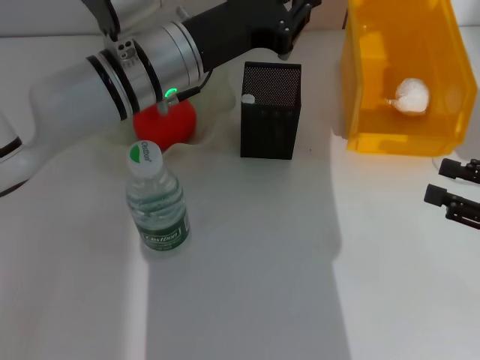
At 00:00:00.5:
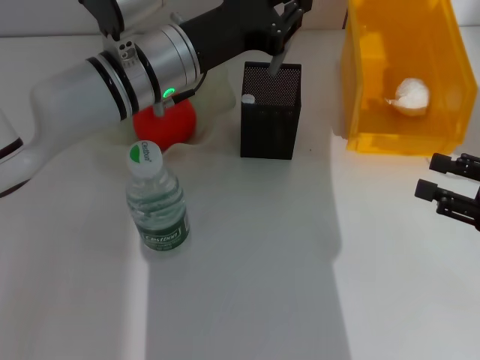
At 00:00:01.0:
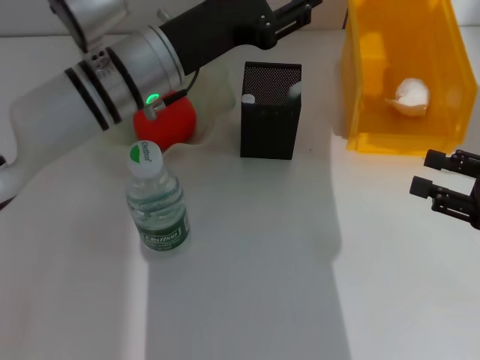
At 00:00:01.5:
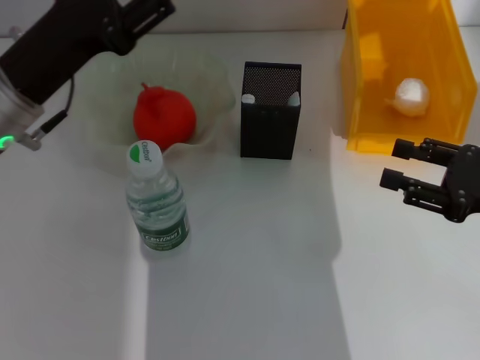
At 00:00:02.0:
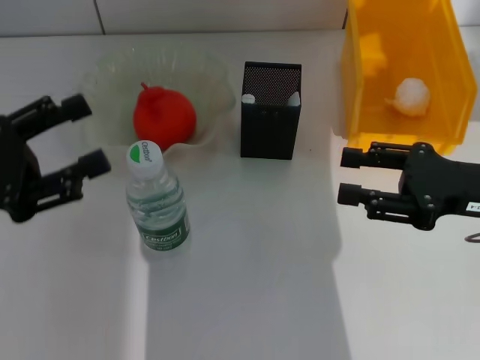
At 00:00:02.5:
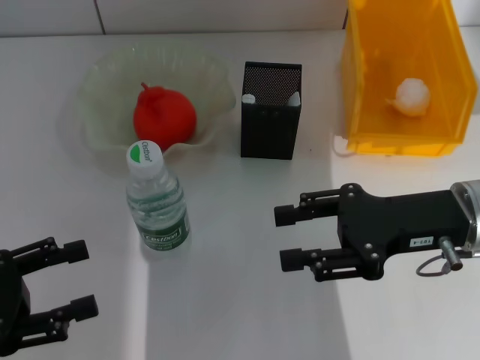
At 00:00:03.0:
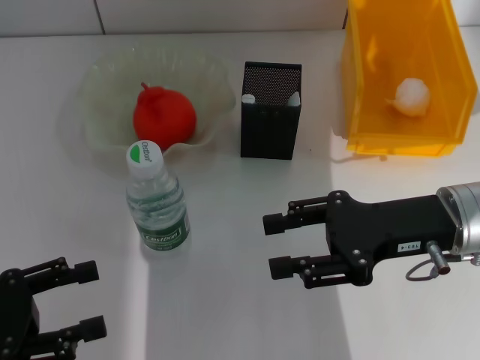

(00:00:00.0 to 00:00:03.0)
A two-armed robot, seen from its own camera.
00:00:00.0 - 00:00:01.5: The left gripper is displaced to the left and backward by roughly 10 cm, and opens.
00:00:01.5 - 00:00:03.0: The right gripper travels to the left by some 10 cm. The left gripper heads backward and to the left, covering approximately 20 cm.

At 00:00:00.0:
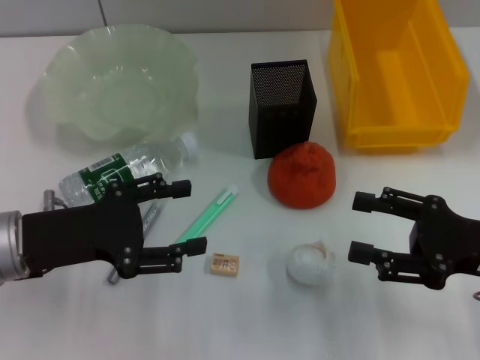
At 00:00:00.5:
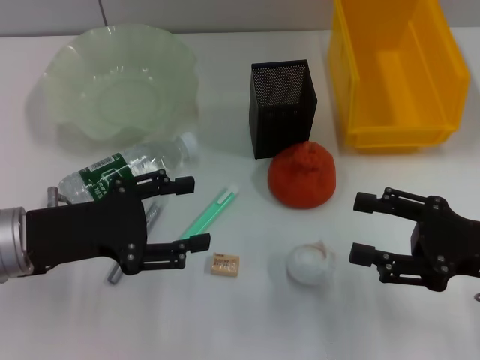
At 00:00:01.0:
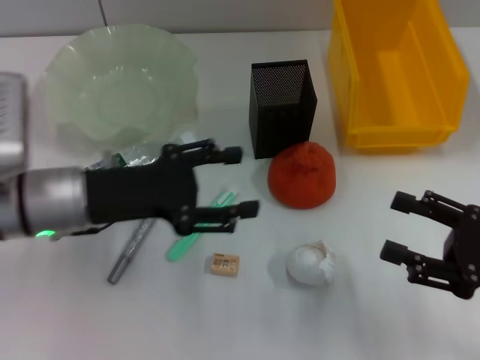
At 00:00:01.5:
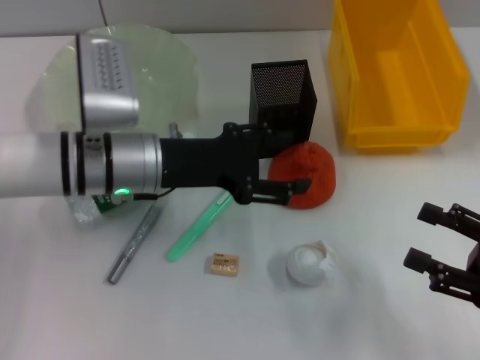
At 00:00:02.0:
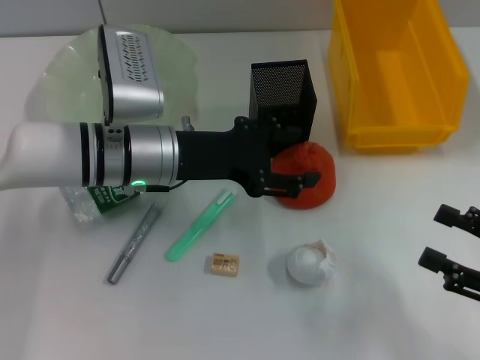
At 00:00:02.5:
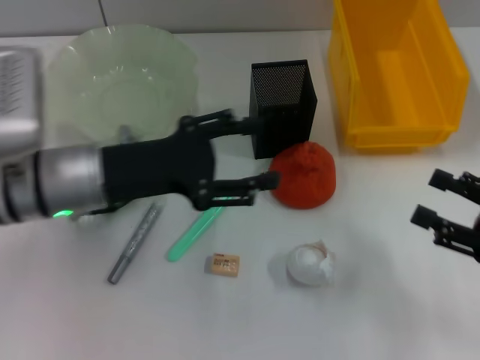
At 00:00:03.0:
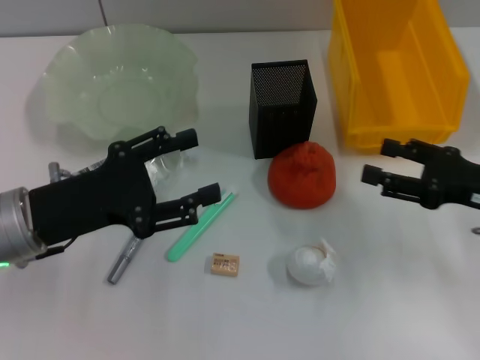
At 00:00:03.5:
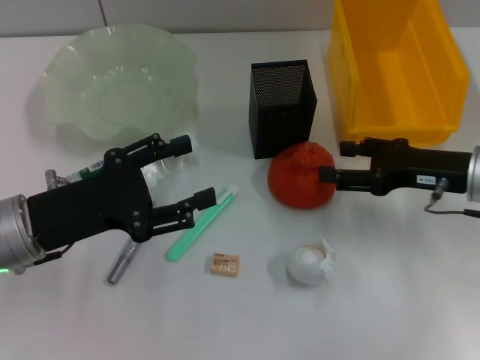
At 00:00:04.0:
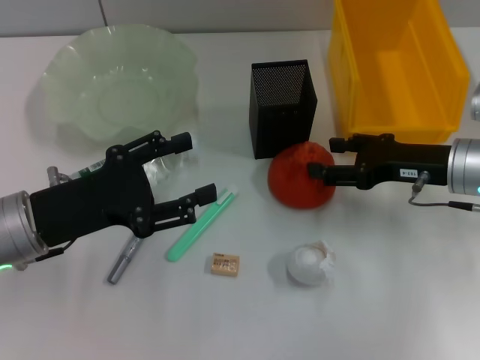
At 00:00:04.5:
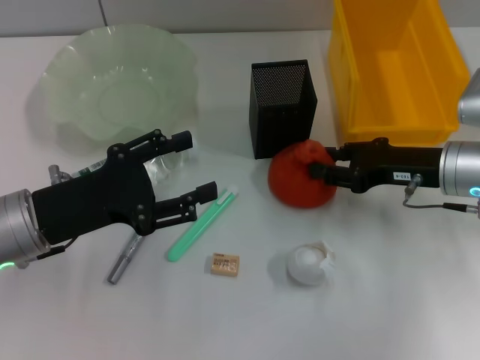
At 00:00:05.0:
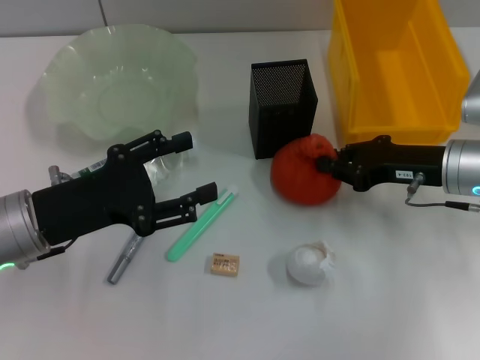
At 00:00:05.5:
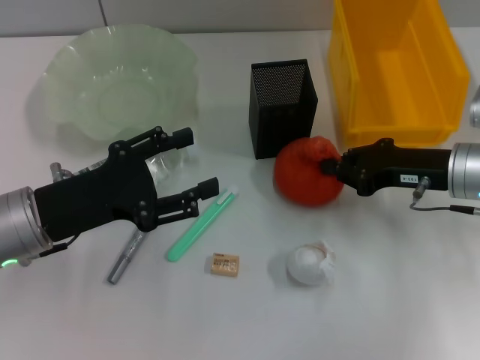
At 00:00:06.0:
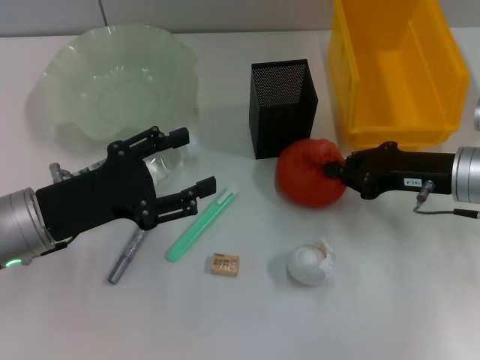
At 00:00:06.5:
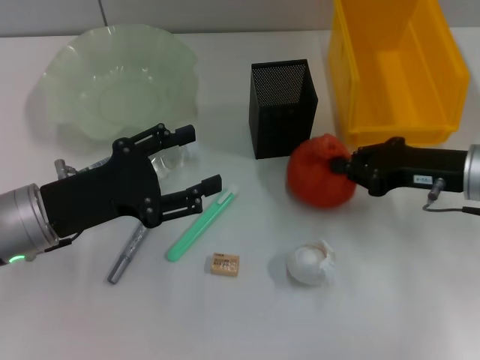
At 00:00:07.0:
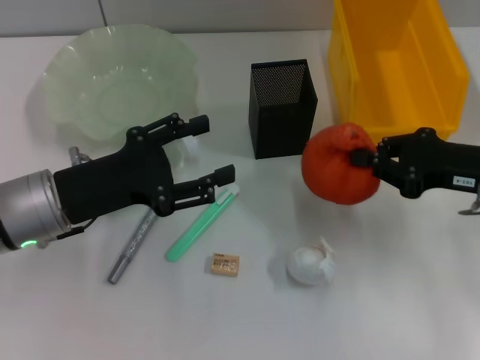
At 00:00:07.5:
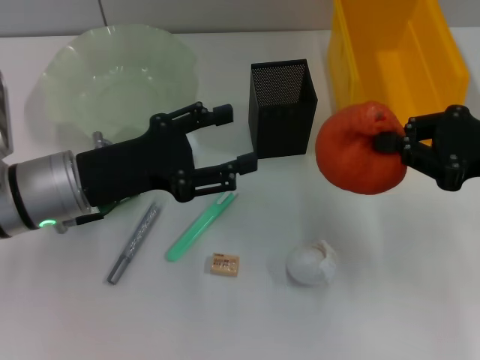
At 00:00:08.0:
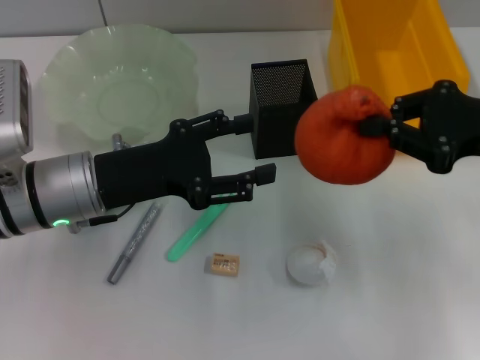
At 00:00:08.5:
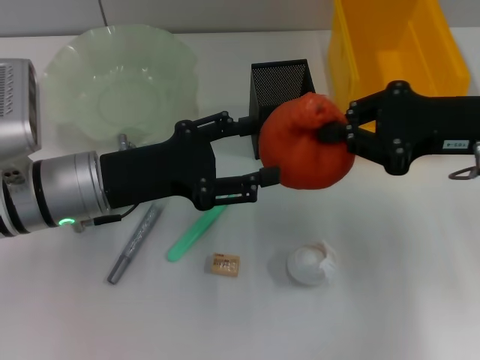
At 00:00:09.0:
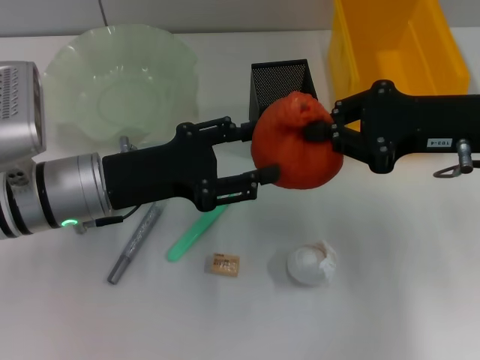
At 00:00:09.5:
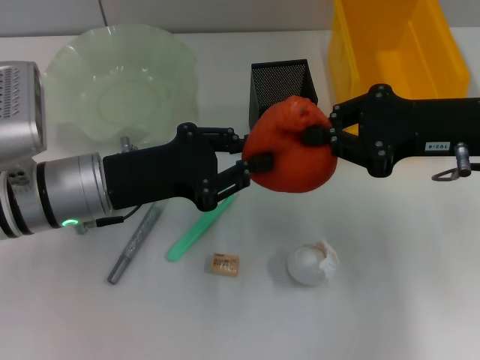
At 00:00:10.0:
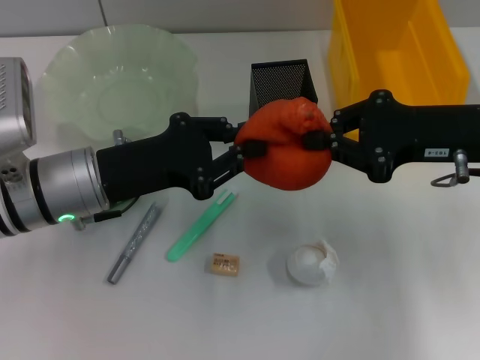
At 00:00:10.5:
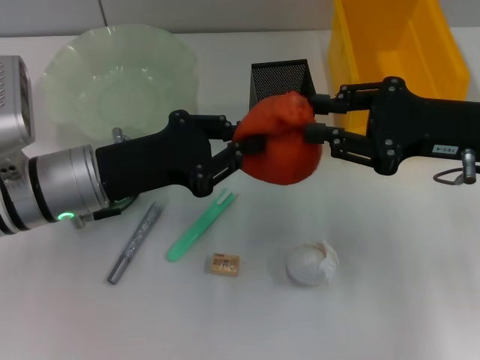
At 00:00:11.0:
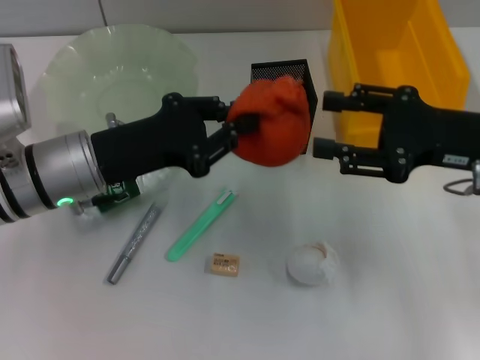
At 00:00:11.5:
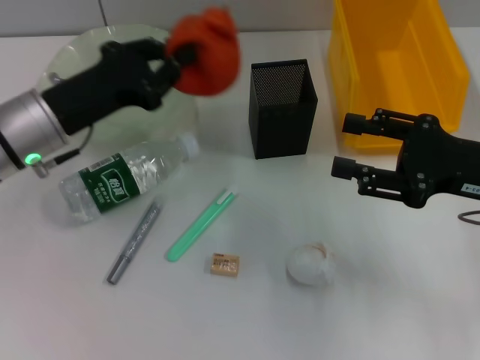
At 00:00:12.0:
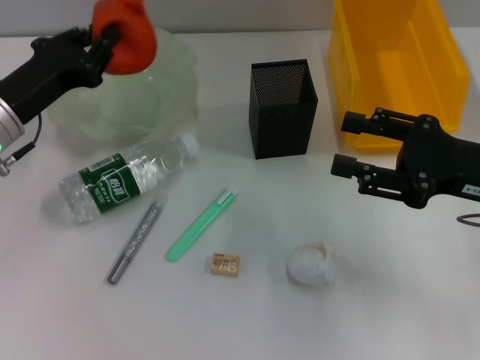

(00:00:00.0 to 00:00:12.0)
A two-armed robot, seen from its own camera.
Step, 00:00:00.0 - 00:00:05.0: Grab the orange with the right hand.
Step, 00:00:06.0 - 00:00:10.5: Pass the orange from the right hand to the left hand.
00:00:00.0 - 00:00:02.0: The right gripper moves backward and to the right, approximately 10 cm; the left gripper travels to the right and forward by roughly 15 cm.
00:00:02.0 - 00:00:04.0: The left gripper travels to the left and backward by about 15 cm; the right gripper shifts roughly 20 cm forward and to the left.
00:00:04.0 - 00:00:06.0: The right gripper closes.
00:00:06.0 - 00:00:08.0: The left gripper changes place by some 5 cm. The right gripper is displaced upward by about 10 cm.
00:00:08.0 - 00:00:10.0: The left gripper closes up.
00:00:10.0 - 00:00:12.0: The right gripper moves about 5 cm, and opens its fingers, while the left gripper goes approximately 10 cm to the left.

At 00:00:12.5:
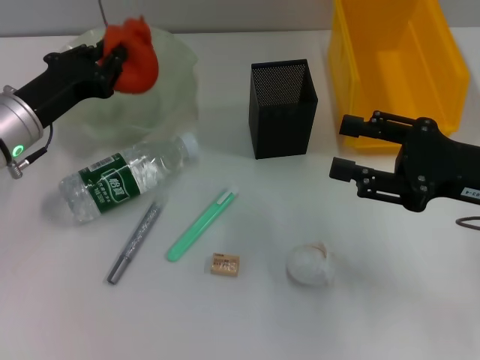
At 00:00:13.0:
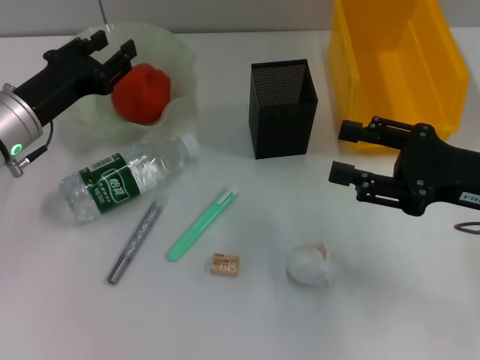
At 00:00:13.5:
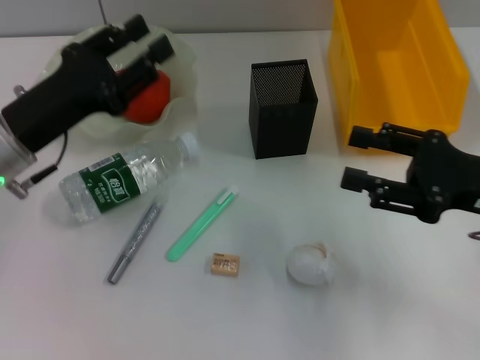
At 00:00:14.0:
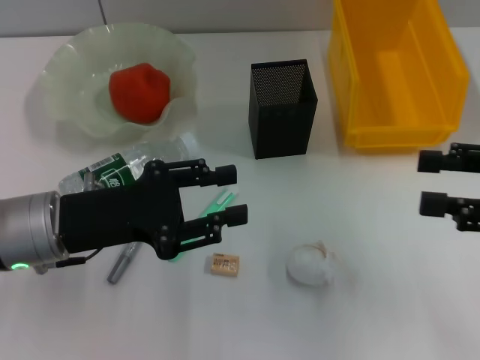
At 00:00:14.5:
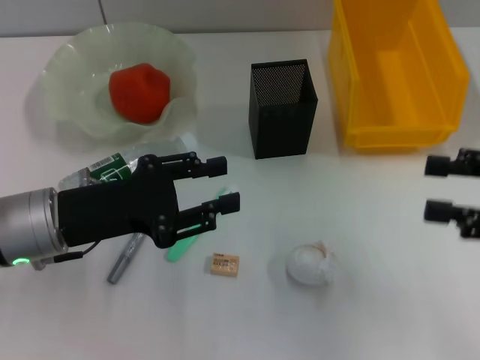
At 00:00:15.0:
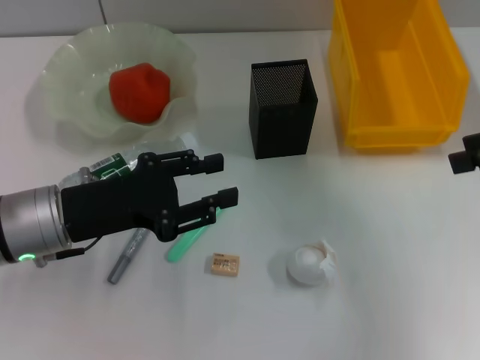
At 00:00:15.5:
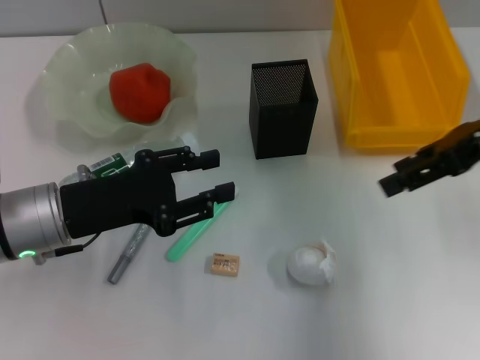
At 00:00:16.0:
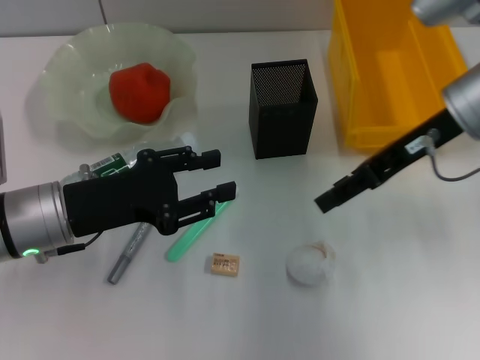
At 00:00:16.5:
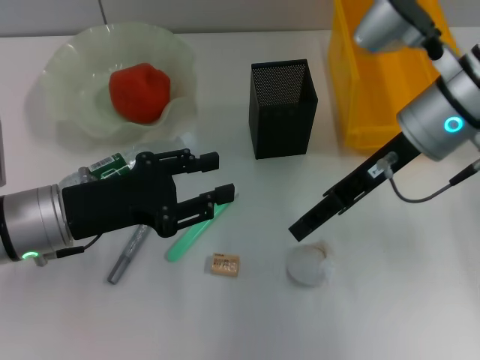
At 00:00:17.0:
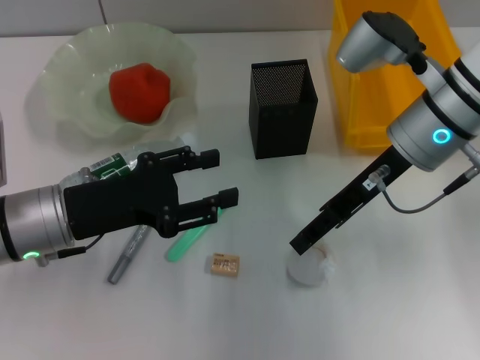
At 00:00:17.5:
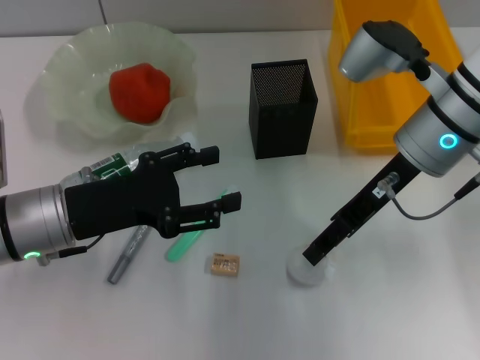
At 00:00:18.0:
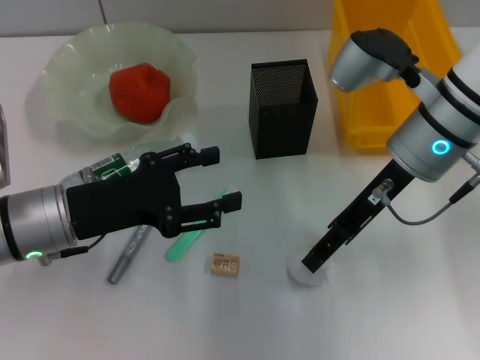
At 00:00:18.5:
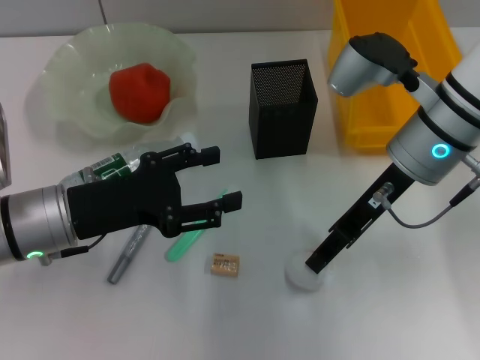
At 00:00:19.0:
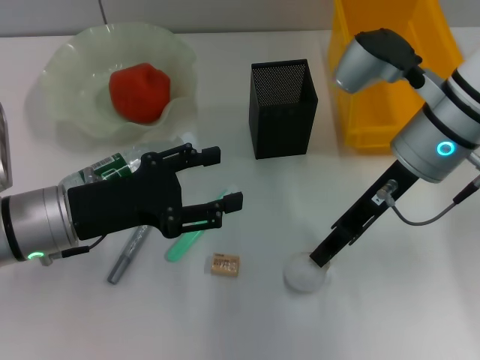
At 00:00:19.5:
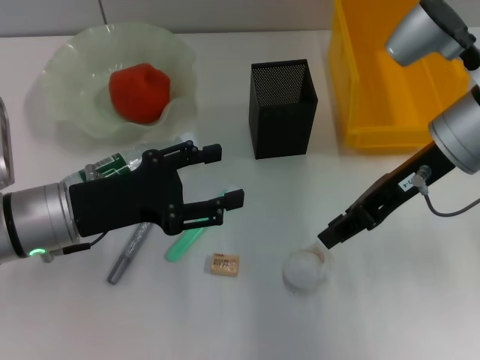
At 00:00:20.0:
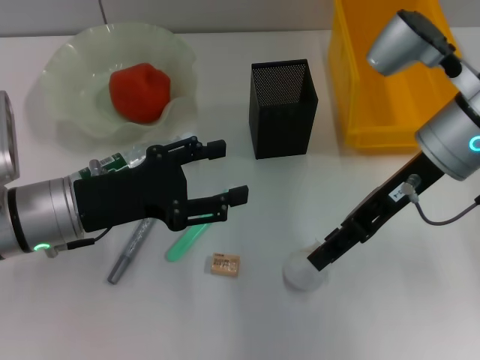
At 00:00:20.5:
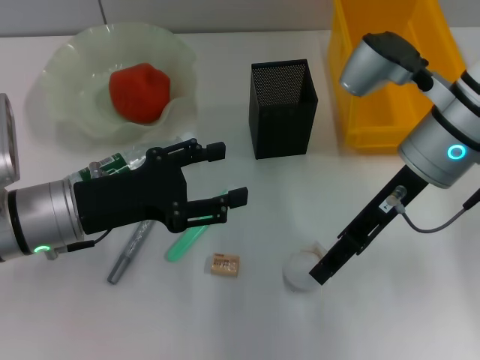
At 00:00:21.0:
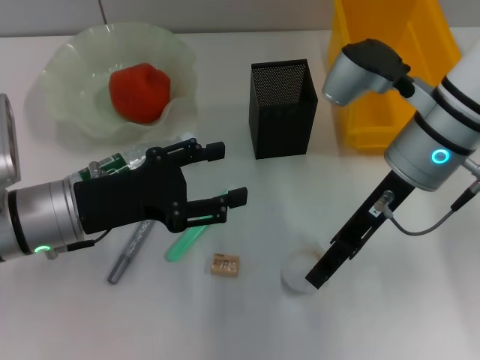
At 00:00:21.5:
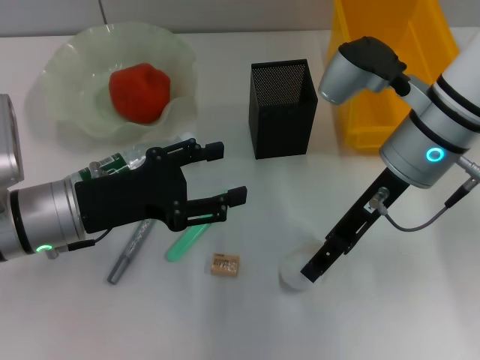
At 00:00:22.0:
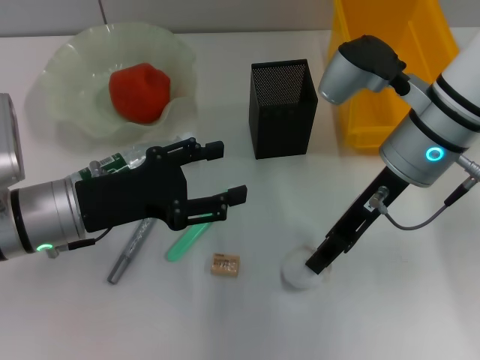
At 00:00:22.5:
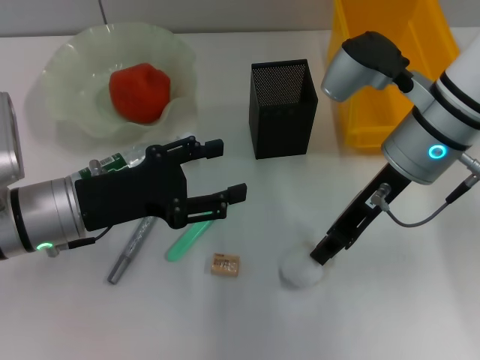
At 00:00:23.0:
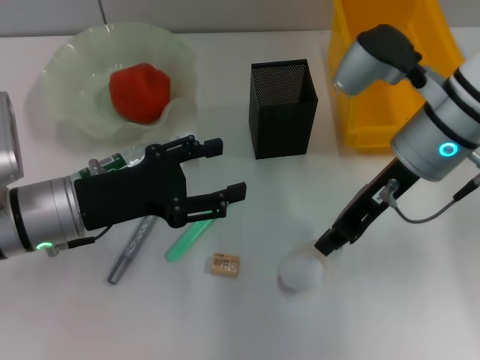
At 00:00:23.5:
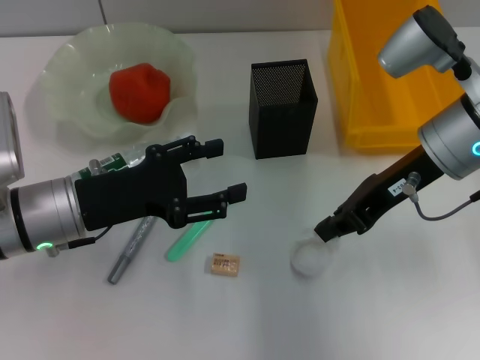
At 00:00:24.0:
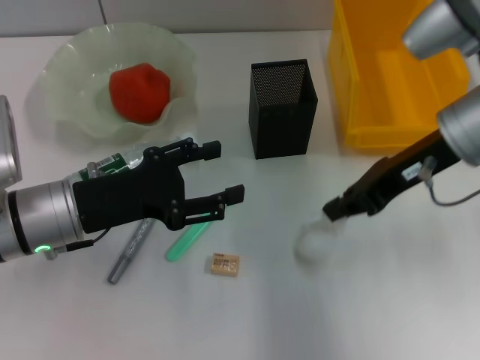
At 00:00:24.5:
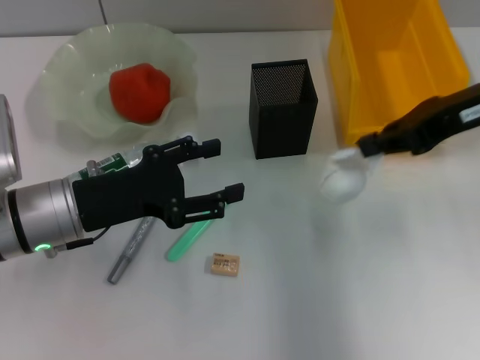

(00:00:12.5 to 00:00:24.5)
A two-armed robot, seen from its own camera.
Step, 00:00:13.5 - 00:00:22.5: Grab the paper ball with the right hand.
00:00:12.5 - 00:00:14.5: The left gripper travels backward by roughly 10 cm, and opens up. The right gripper travels to the right and upward by approximately 10 cm.
00:00:14.5 - 00:00:16.5: The right gripper heads to the left and forward, covering about 20 cm.
00:00:16.5 - 00:00:18.5: The left gripper opens up.
00:00:18.5 - 00:00:20.5: The right gripper closes, then reopens.
00:00:20.5 - 00:00:22.5: The right gripper closes its fingers.
00:00:22.5 - 00:00:24.5: The right gripper shifts roughly 10 cm to the right and upward.
